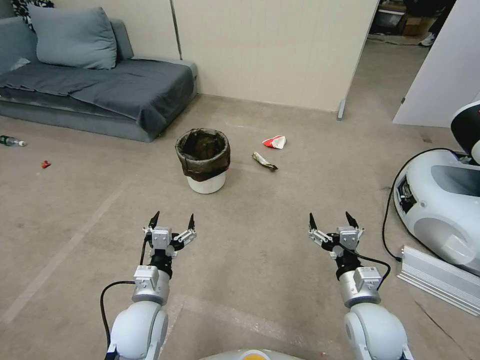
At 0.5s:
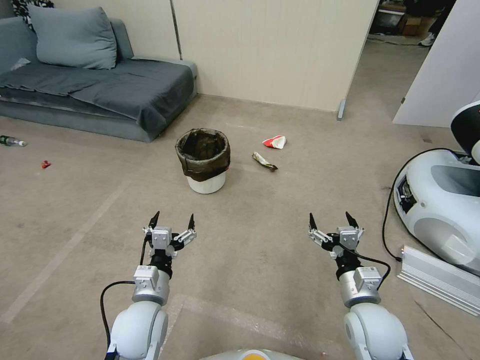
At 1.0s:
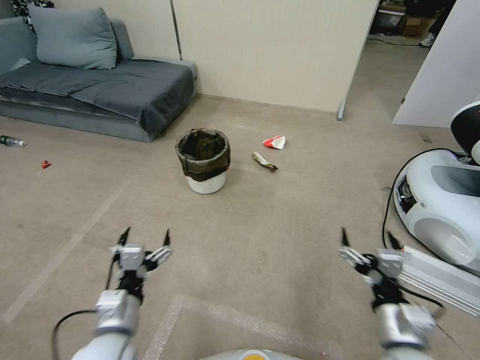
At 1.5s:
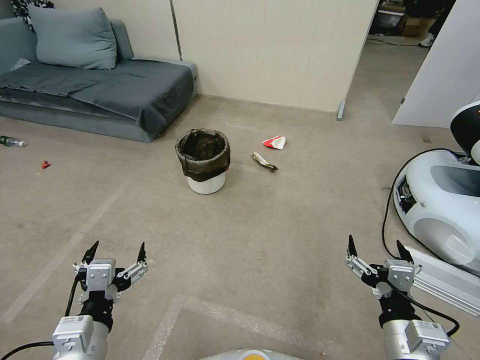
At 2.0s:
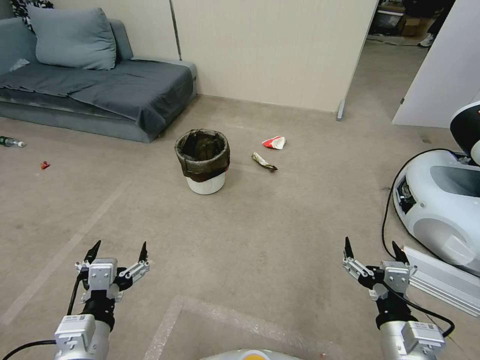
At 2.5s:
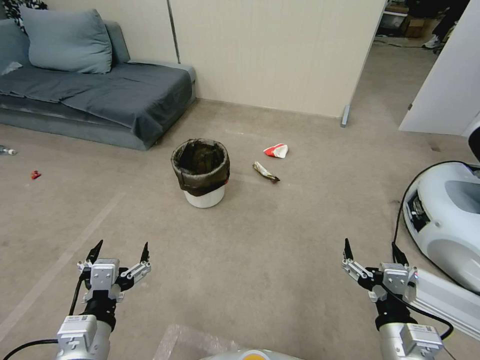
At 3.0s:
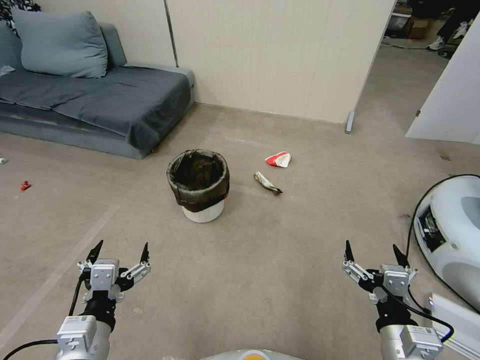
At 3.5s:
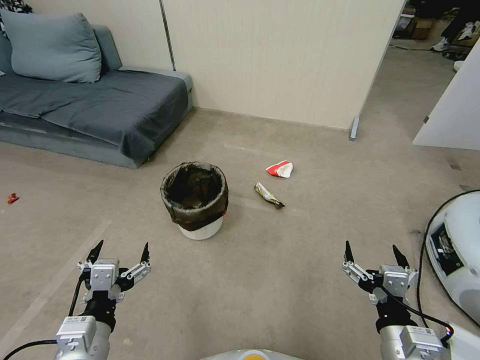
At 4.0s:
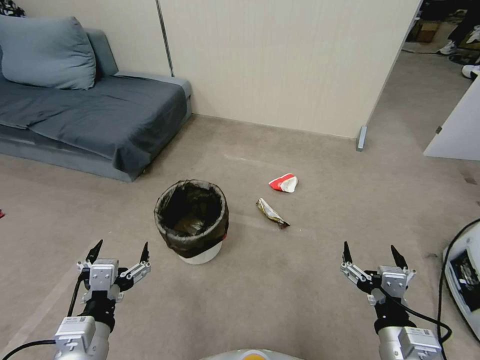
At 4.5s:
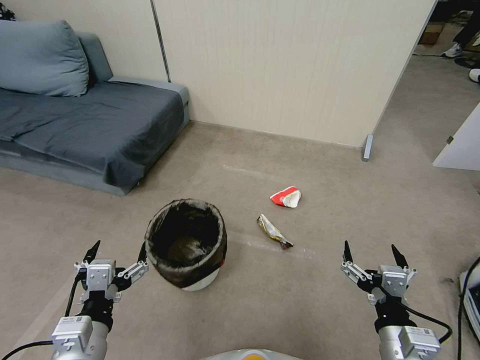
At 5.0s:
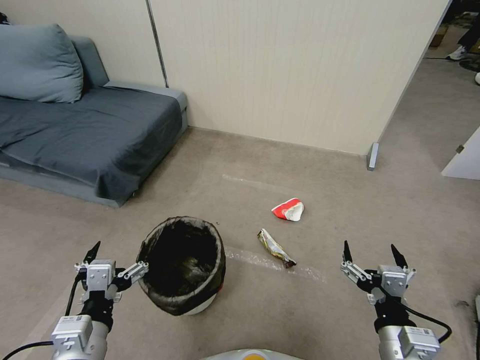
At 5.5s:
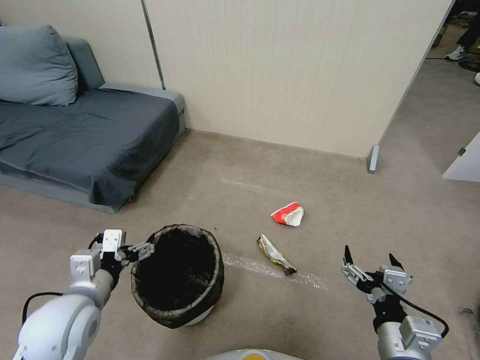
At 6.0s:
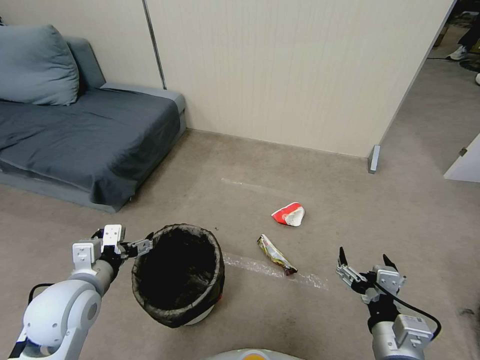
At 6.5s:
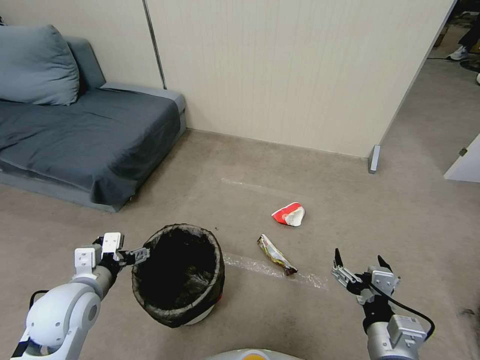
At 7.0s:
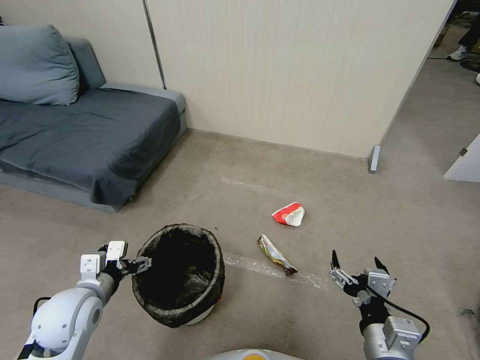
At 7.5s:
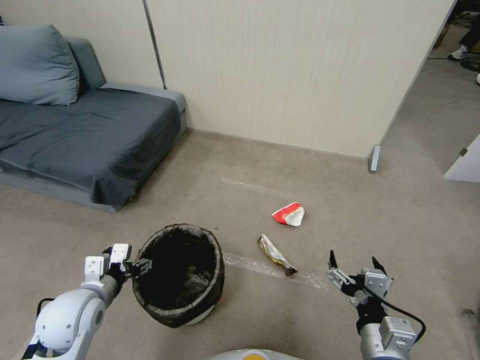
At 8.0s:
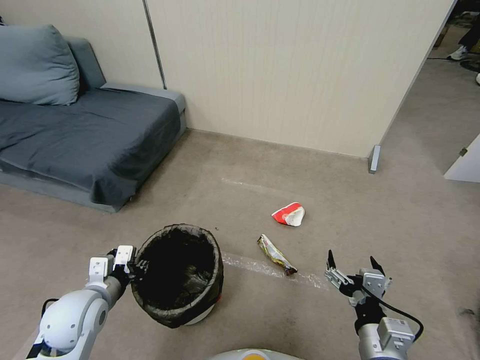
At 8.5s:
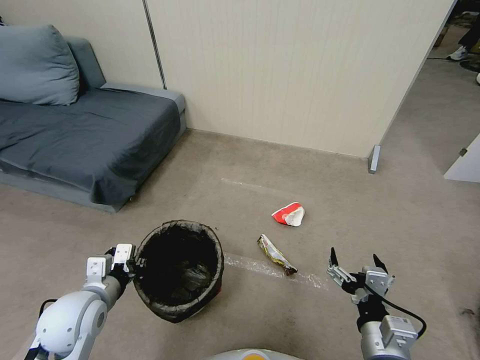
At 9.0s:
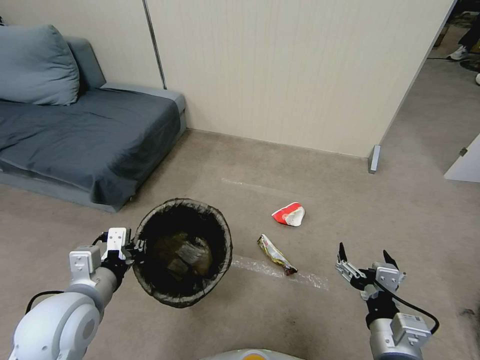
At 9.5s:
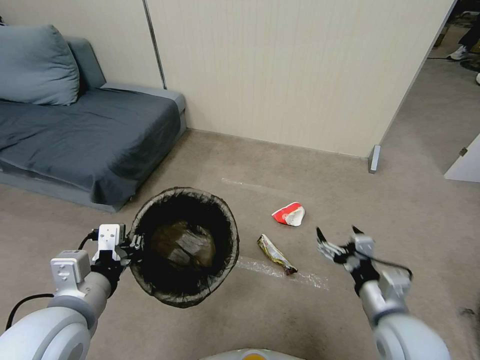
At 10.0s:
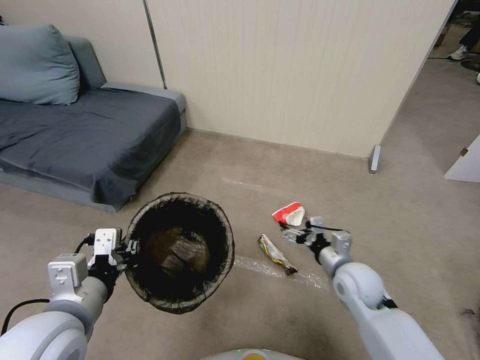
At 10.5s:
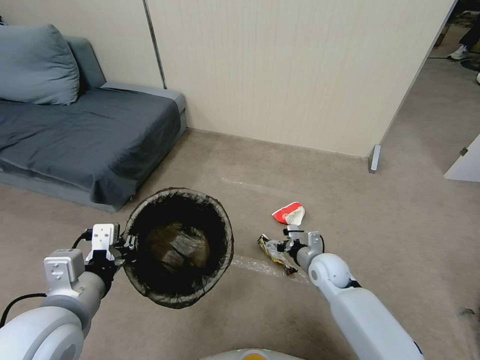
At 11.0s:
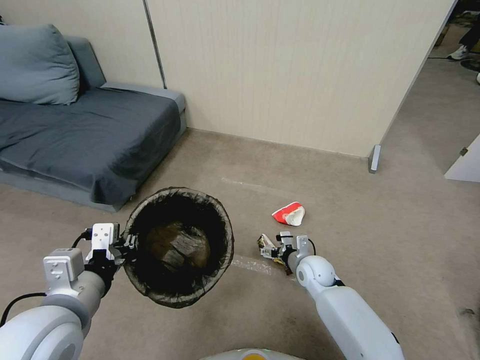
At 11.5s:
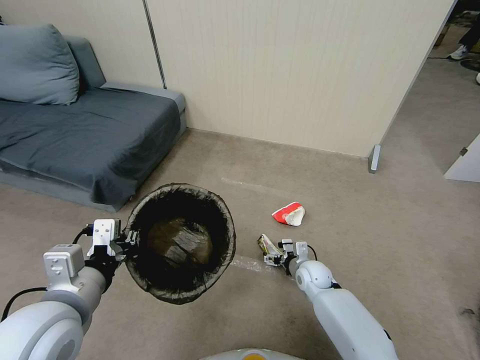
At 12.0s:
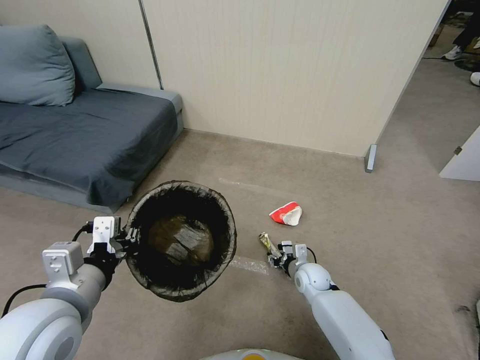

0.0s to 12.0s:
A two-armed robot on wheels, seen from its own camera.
Task of the whole recording: Pick up the trash bin, then pick up the garbage from the floor and place it into the trash bin.
4.0s to 6.0s: The left gripper heads forward and to the left, covering about 15 cm.
6.0s to 8.0s: The left gripper travels downward by about 5 cm, and closes.
8.0s to 10.0s: The left gripper moves upward, backward and to the right, approximately 15 cm; the right gripper travels forward by approximately 20 cm.
10.0s to 12.0s: The right gripper shifts about 15 cm downward, and closes up.

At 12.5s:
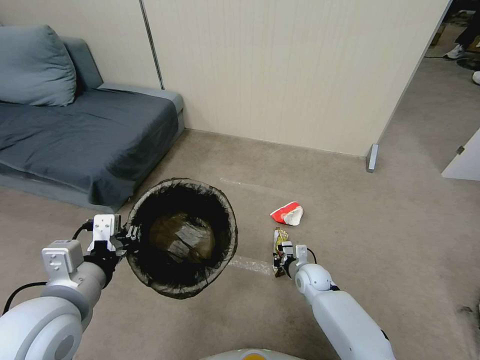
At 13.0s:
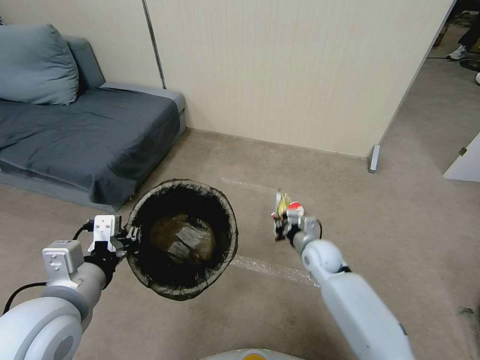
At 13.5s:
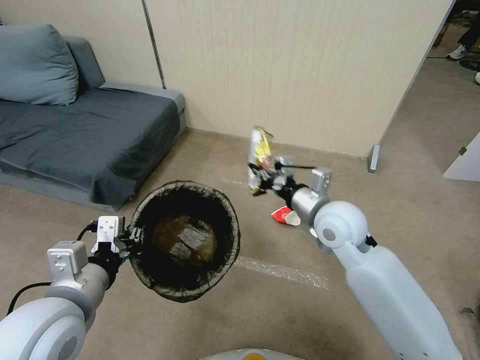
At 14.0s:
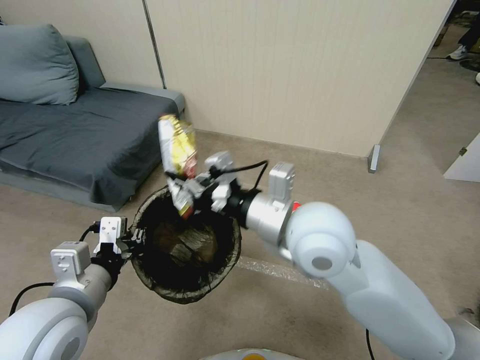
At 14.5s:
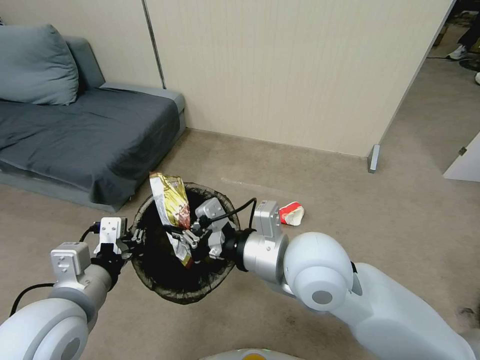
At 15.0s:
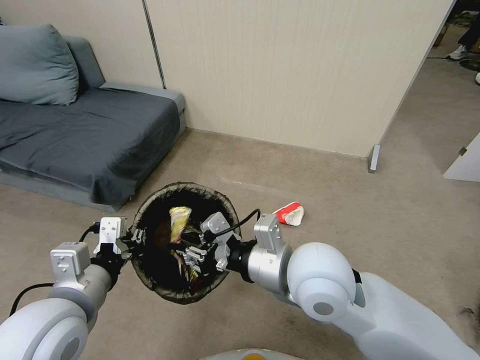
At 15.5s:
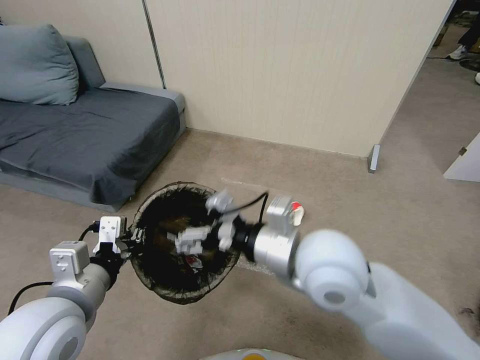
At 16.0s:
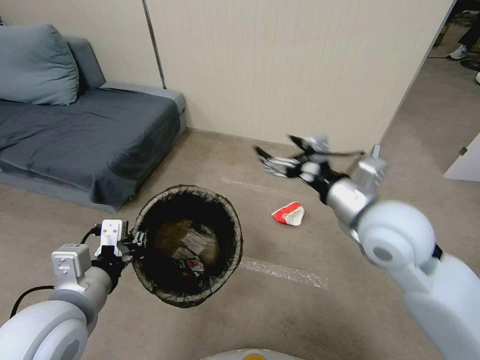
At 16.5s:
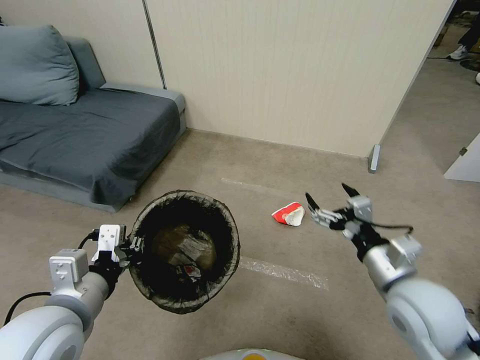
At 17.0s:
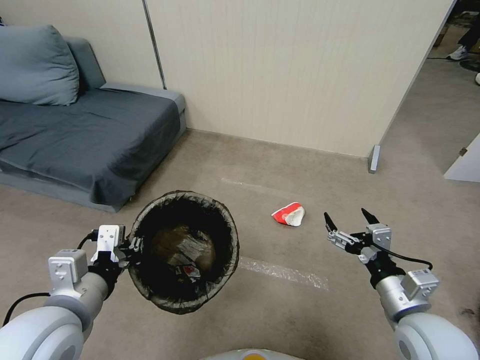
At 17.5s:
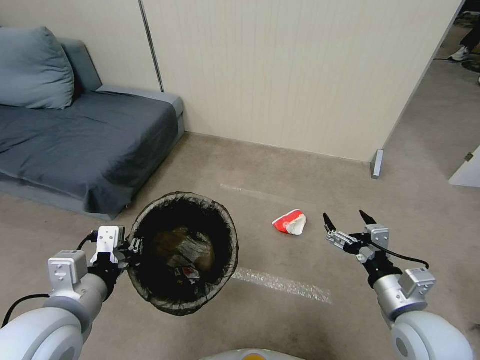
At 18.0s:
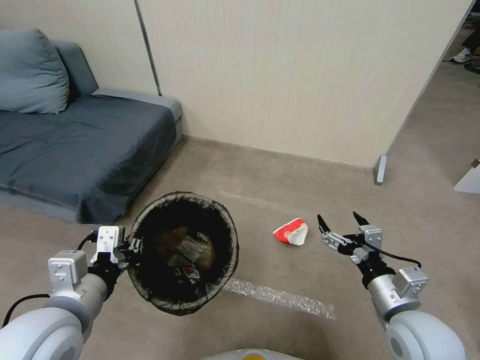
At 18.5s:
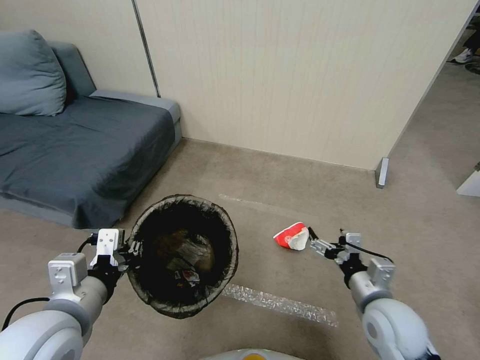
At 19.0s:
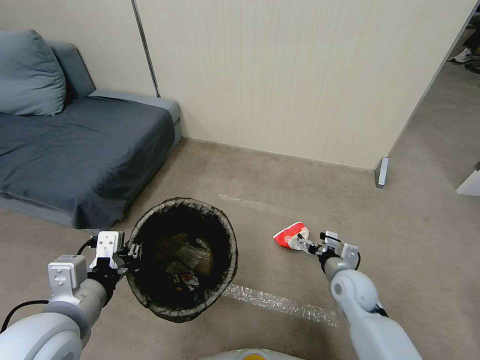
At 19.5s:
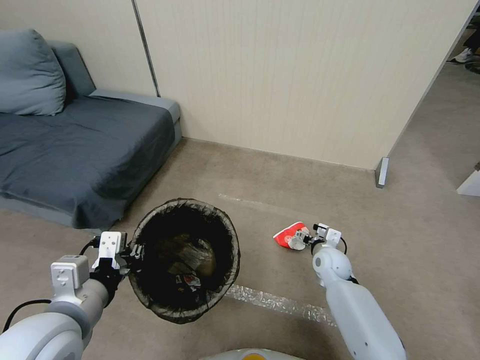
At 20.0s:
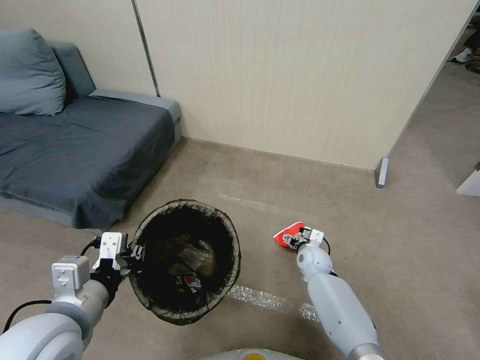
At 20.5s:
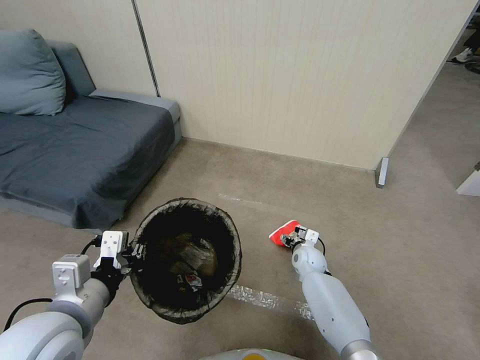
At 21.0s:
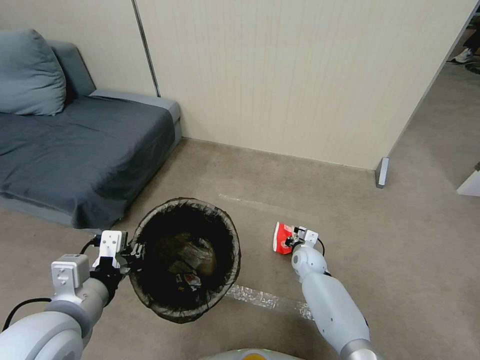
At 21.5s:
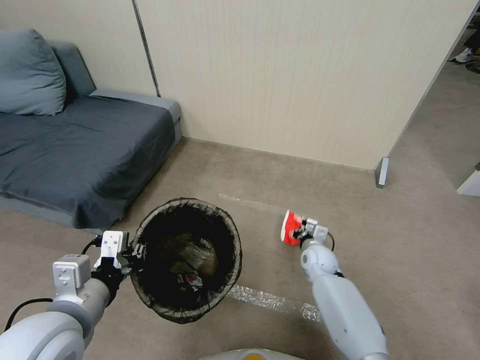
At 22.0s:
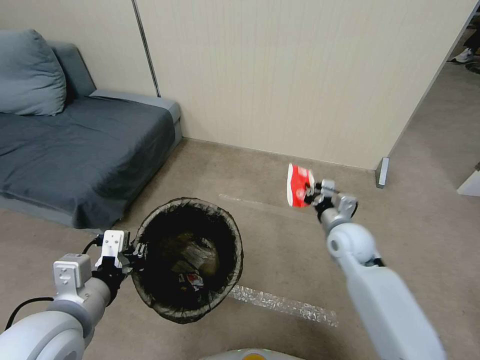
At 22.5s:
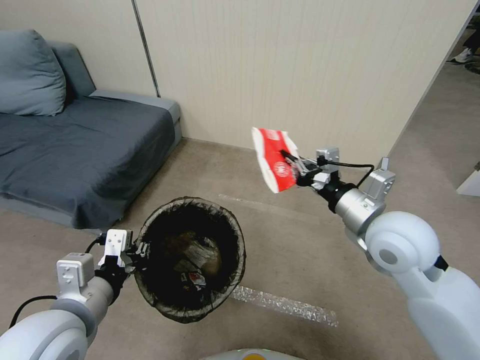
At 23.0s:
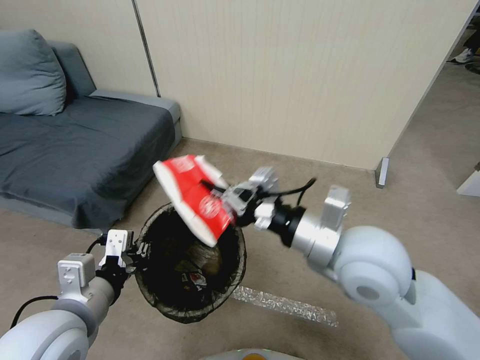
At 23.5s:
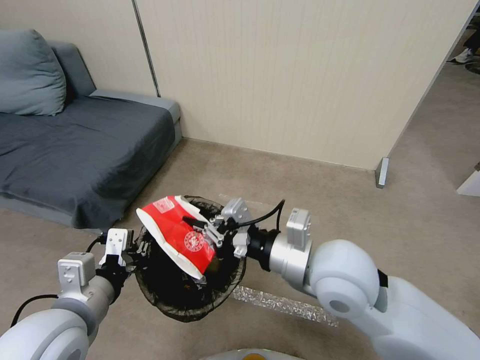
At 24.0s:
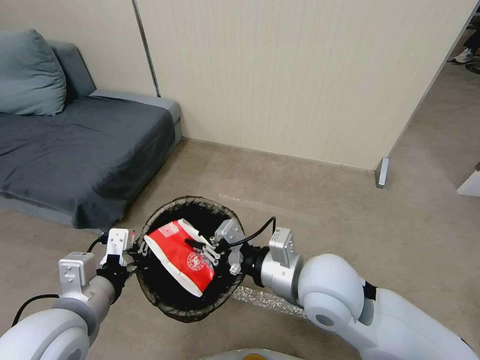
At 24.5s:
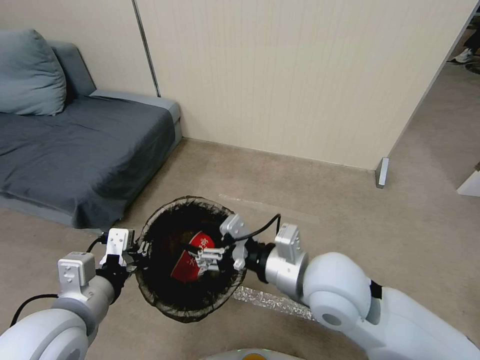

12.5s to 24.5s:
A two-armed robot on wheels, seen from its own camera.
Task of the whole recording: Pick up the trash bin, then pick up the garbage from the floor and place it into the trash bin.
12.5s to 14.5s: The right gripper is displaced upward by approximately 40 cm.
14.5s to 16.5s: The right gripper heads to the right and downward, covering approximately 20 cm, and opens up.
16.5s to 18.5s: The right gripper moves downward, roughly 10 cm.
18.5s to 20.5s: The right gripper travels forward and downward by approximately 25 cm.
20.5s to 22.5s: The right gripper moves upward, approximately 35 cm, and closes its fingers.
22.5s to 24.5s: The right gripper travels to the left and backward by about 10 cm, and opens up.

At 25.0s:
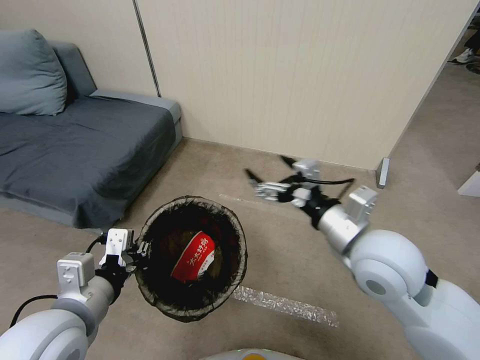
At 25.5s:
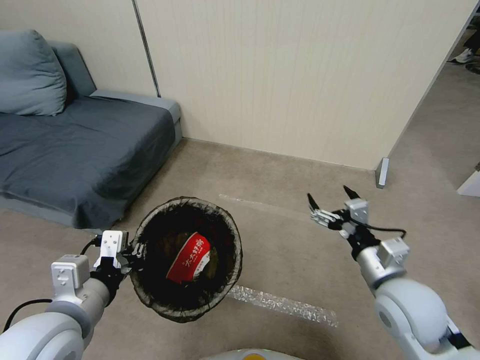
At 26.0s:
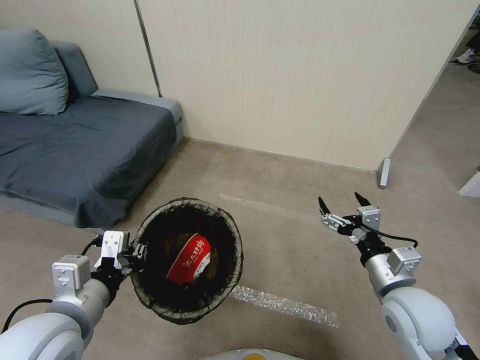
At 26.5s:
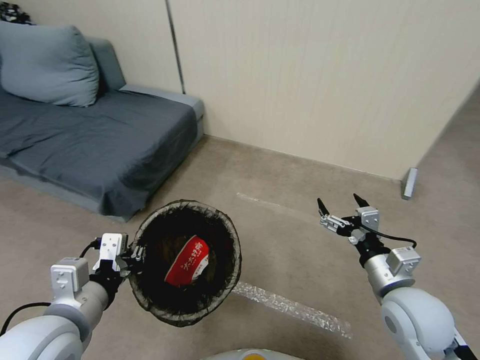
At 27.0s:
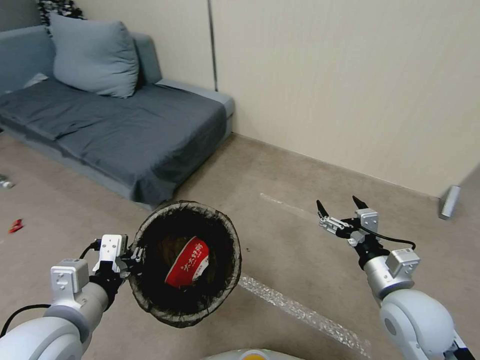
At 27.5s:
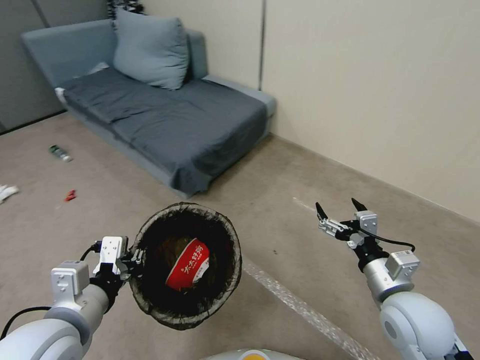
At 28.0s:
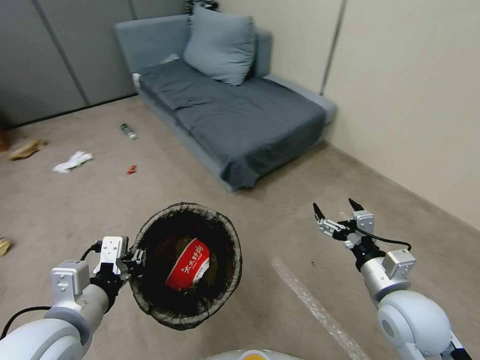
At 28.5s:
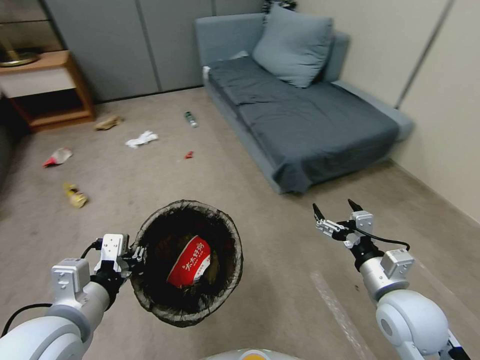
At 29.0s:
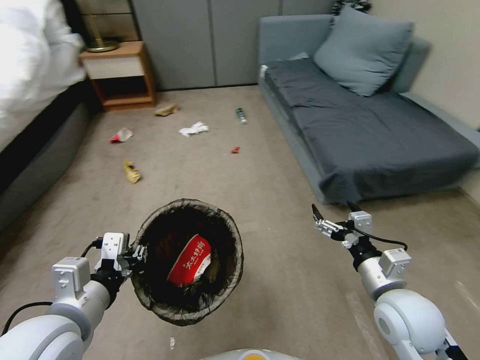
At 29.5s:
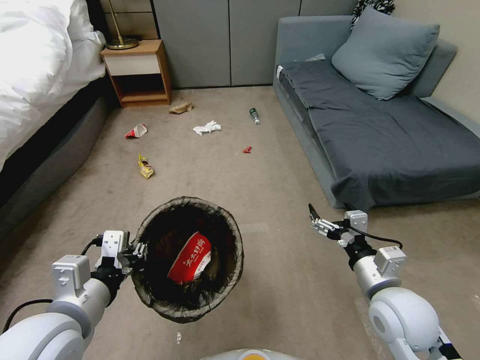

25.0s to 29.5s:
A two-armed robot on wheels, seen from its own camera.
Task of the whole recording: Pick up the trash bin, then pick up the garbage from the floor and place it into the trash bin.
25.0s to 27.0s: The right gripper shifts about 15 cm downward and to the right.
